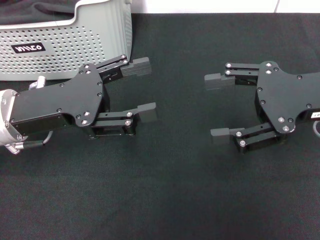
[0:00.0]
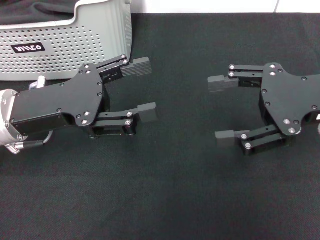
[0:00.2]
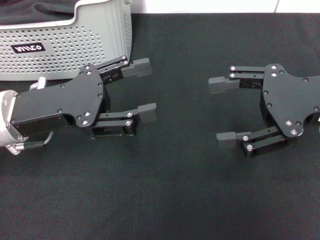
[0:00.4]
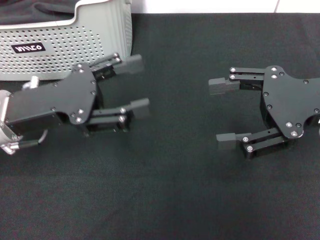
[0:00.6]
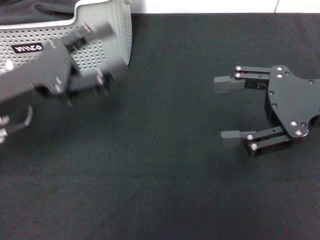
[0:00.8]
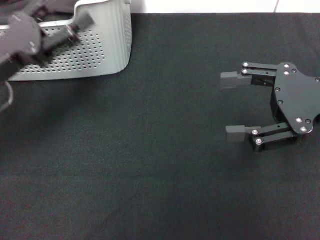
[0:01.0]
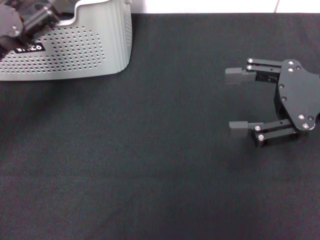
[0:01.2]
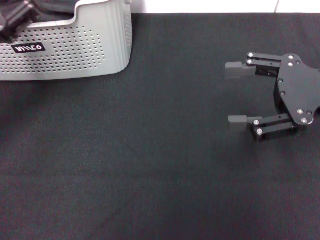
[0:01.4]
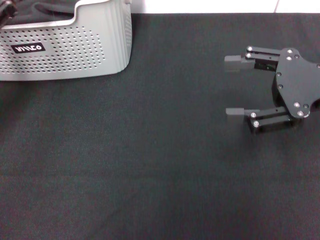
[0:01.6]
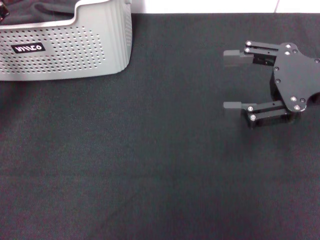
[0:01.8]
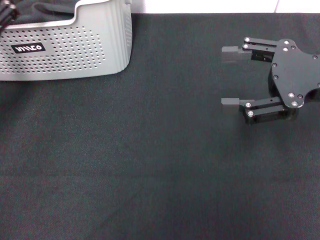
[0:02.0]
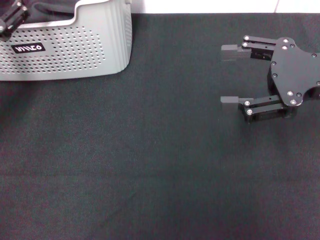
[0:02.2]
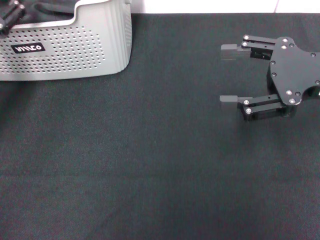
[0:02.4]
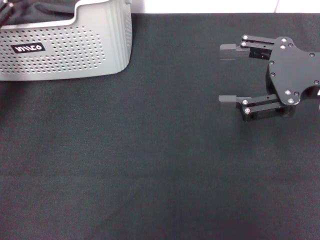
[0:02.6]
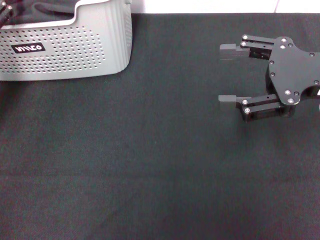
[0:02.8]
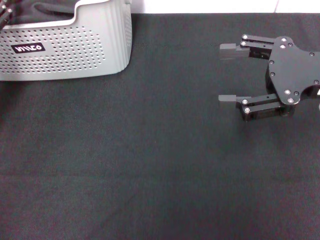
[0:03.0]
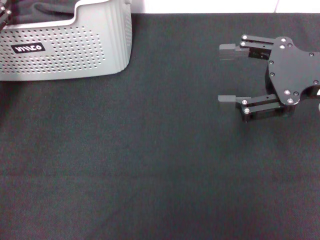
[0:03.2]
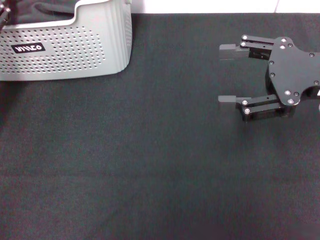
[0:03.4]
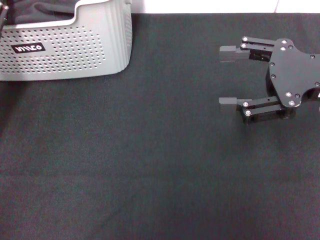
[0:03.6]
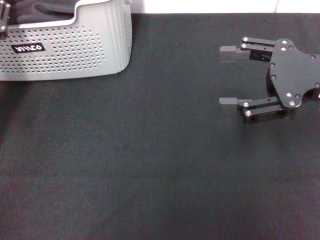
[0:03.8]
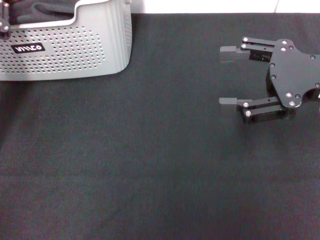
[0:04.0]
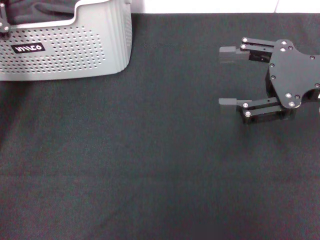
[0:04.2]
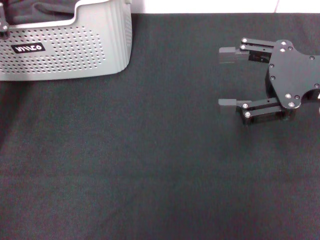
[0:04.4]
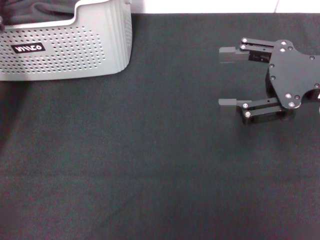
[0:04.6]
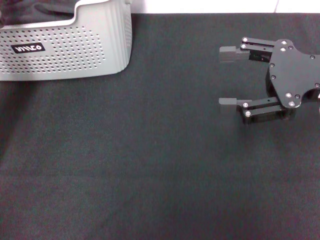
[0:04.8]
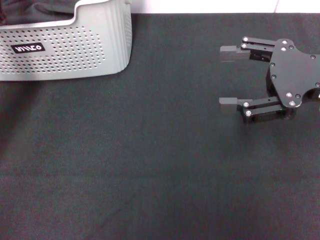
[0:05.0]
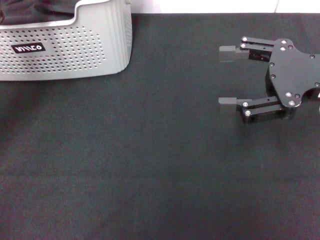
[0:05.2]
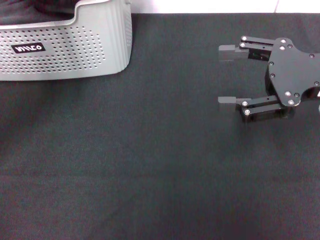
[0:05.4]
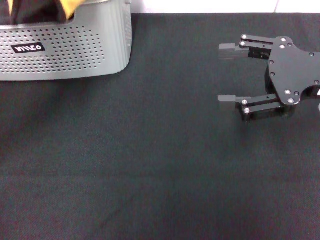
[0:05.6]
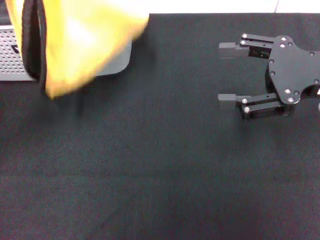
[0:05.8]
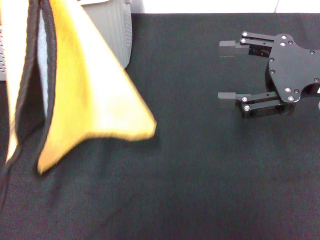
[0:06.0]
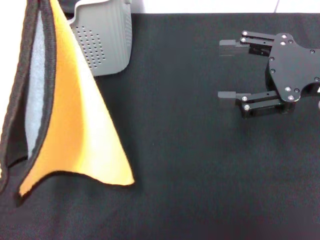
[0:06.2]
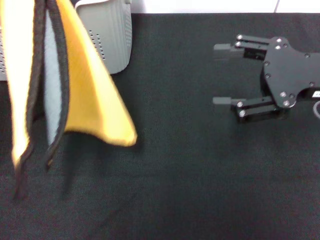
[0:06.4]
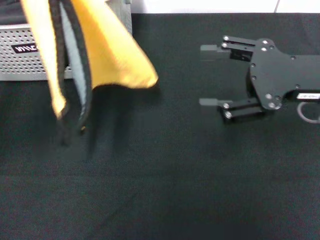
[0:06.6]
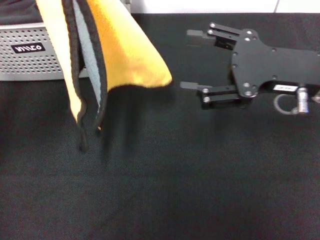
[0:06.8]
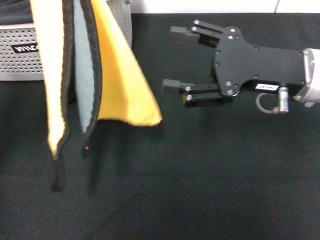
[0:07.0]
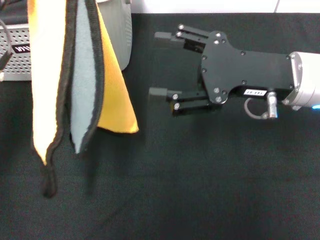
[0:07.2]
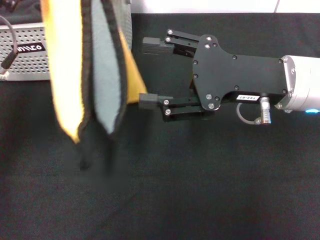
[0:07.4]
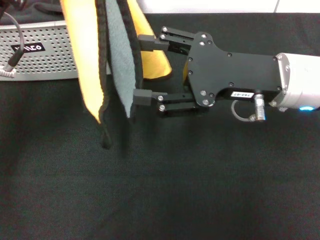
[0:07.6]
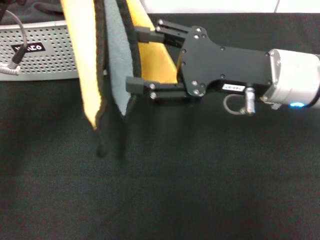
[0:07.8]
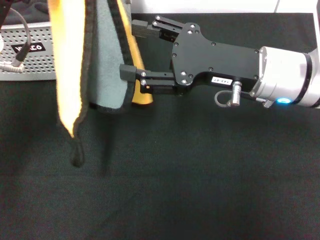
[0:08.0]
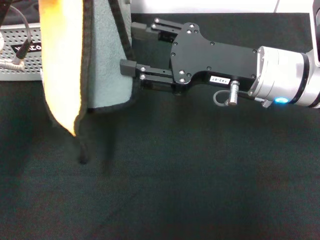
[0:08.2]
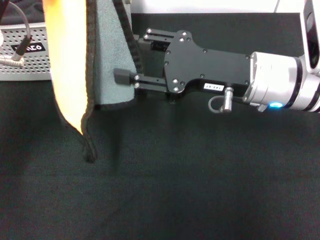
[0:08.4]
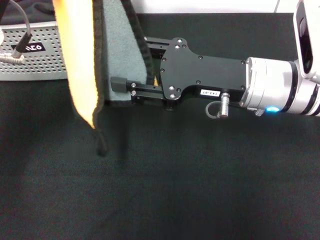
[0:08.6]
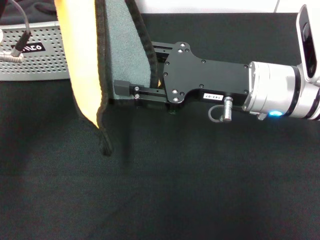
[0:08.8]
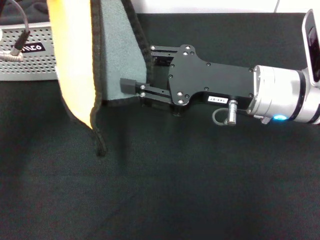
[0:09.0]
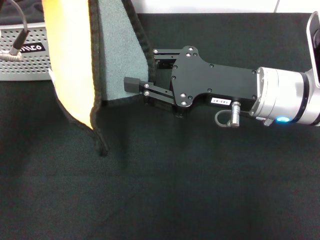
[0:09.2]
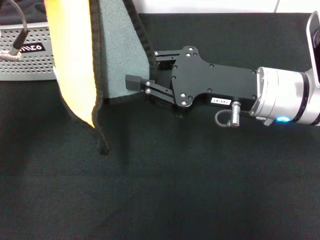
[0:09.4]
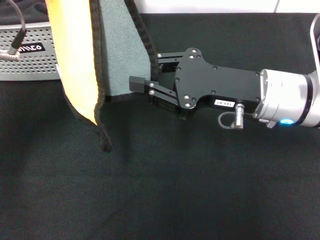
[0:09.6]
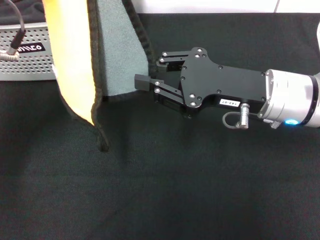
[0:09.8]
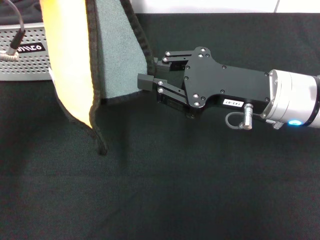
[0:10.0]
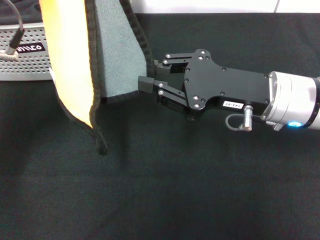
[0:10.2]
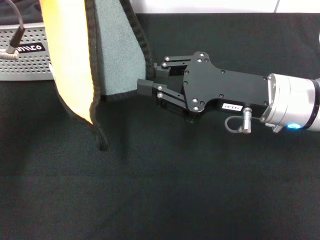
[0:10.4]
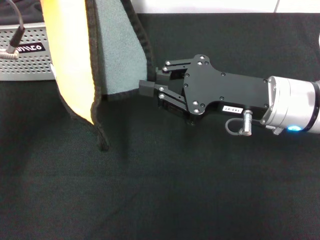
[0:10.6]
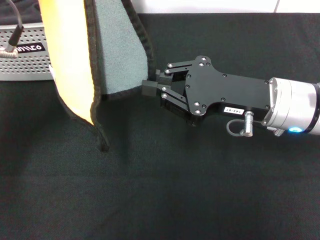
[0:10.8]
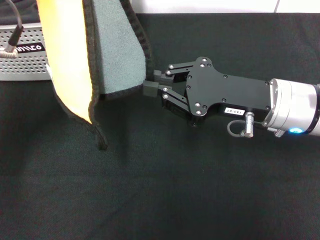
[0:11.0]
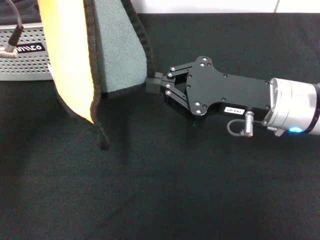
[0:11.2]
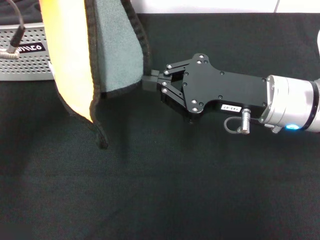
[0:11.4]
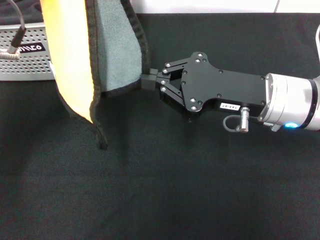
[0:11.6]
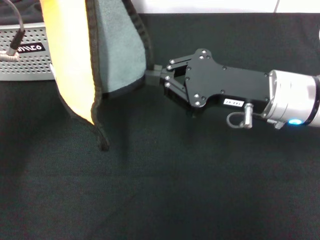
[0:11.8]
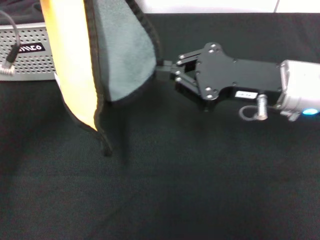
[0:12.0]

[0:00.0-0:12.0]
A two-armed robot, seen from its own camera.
Task of the whole recording: pick up the towel from the storage box and lay it flat on the black tablecloth.
Step, 0:00.0 to 0:04.2: Pick up a towel with the left gripper.
Step, 0:04.6 to 0:11.6: Spread the towel flat with the left gripper.
0:00.0 to 0:01.6: The left gripper heads to the left, covering roughly 10 cm.
0:03.0 to 0:04.4: The left gripper closes up.
0:04.4 to 0:06.0: The left gripper goes some 15 cm upward and backward.
0:06.0 to 0:07.6: The left gripper goes some 5 cm to the right. The right gripper heads to the left, covering roughly 10 cm.
0:07.6 to 0:09.0: The right gripper closes its fingers.
0:09.0 to 0:10.4: The right gripper closes up.
0:10.4 to 0:12.0: There are only small adjustments of the grippers.

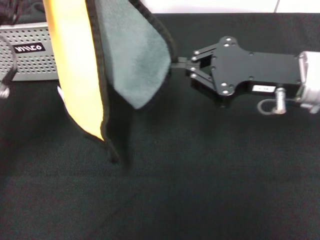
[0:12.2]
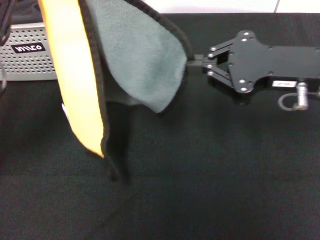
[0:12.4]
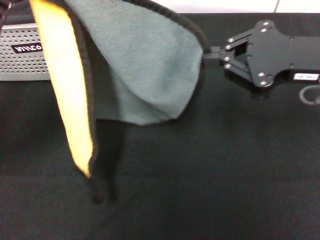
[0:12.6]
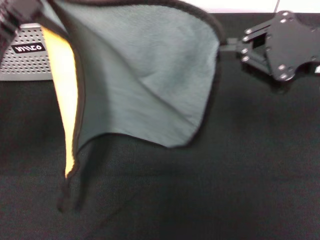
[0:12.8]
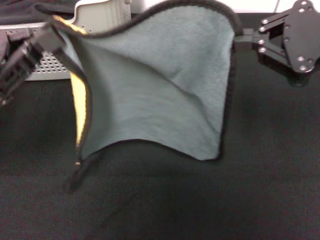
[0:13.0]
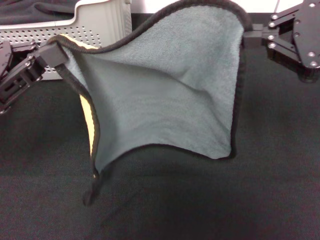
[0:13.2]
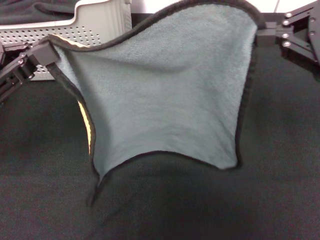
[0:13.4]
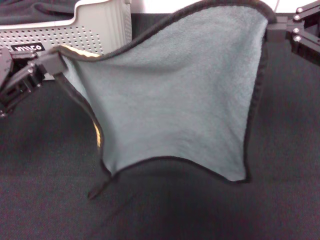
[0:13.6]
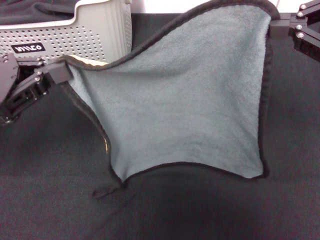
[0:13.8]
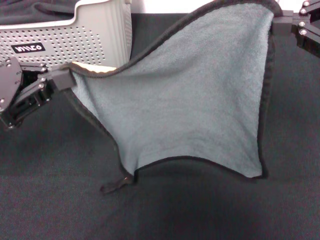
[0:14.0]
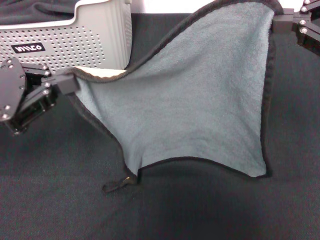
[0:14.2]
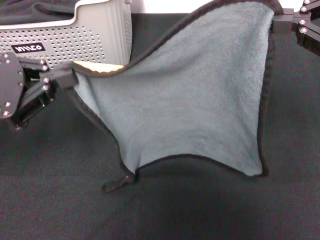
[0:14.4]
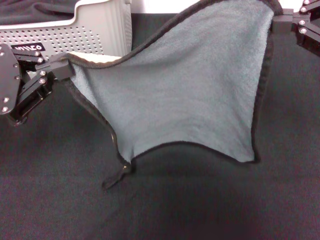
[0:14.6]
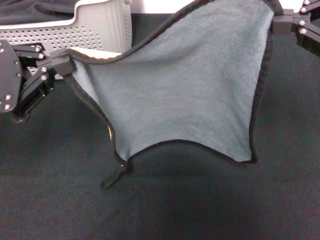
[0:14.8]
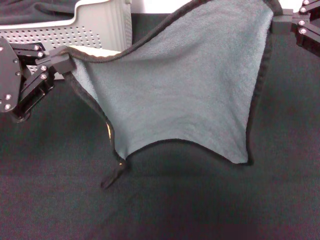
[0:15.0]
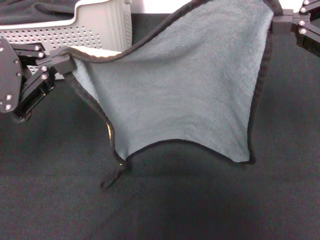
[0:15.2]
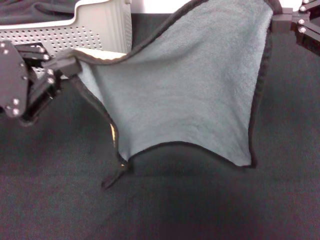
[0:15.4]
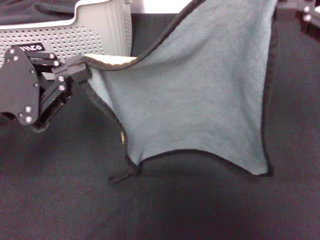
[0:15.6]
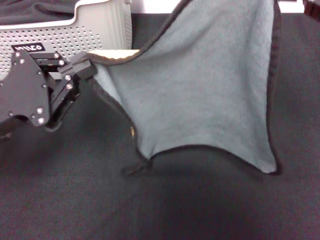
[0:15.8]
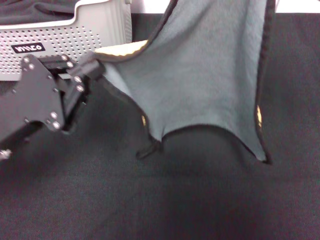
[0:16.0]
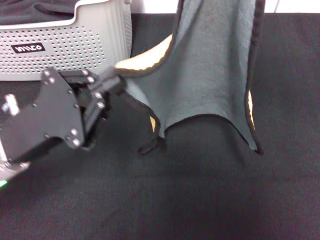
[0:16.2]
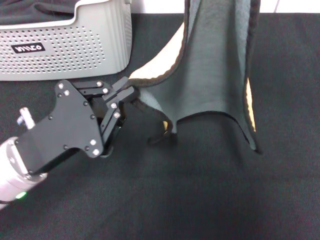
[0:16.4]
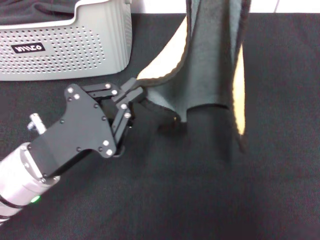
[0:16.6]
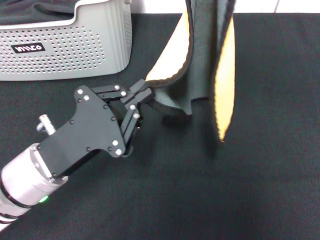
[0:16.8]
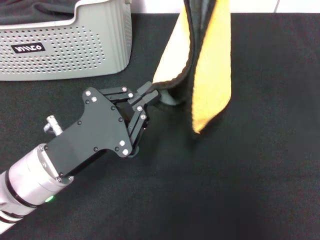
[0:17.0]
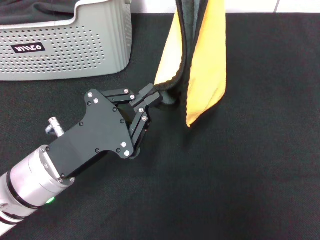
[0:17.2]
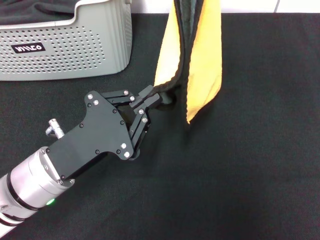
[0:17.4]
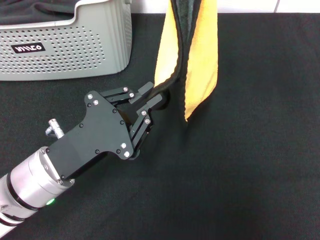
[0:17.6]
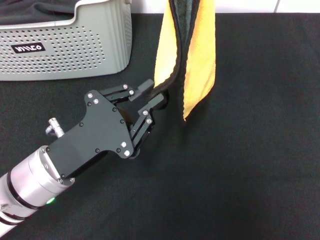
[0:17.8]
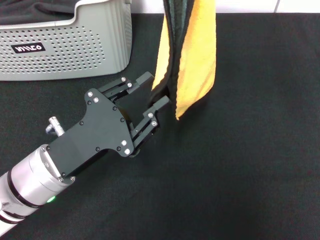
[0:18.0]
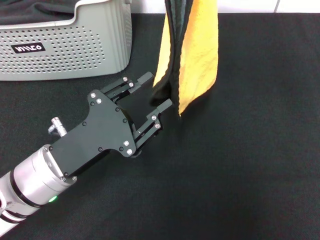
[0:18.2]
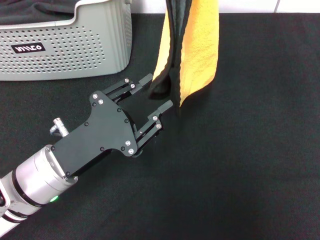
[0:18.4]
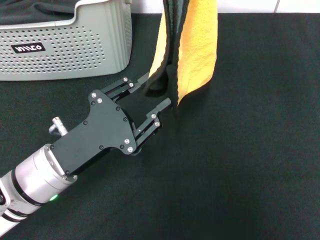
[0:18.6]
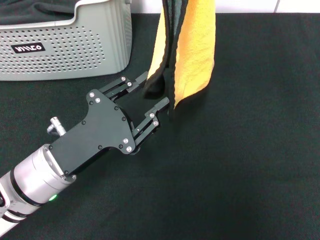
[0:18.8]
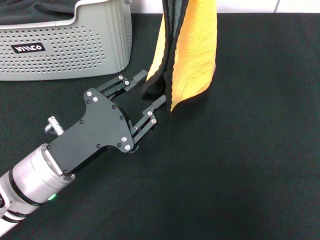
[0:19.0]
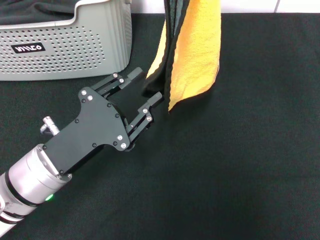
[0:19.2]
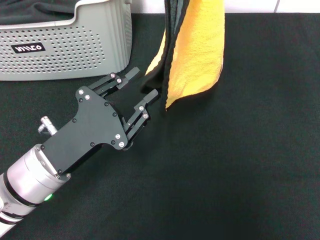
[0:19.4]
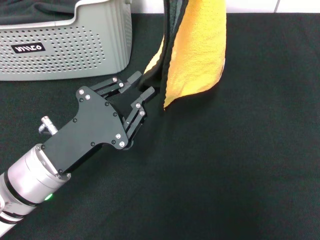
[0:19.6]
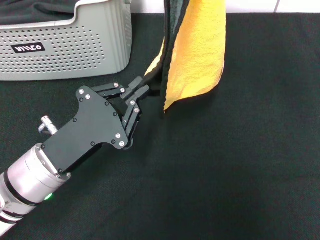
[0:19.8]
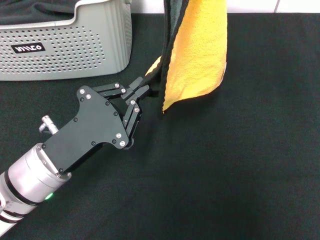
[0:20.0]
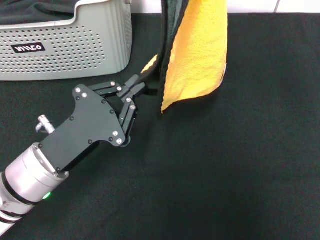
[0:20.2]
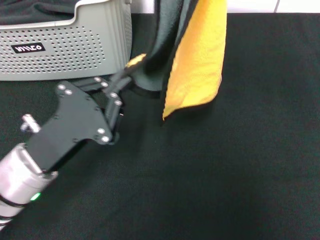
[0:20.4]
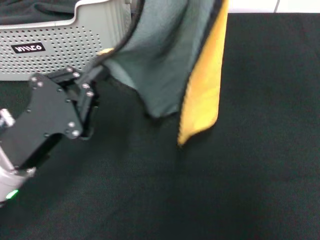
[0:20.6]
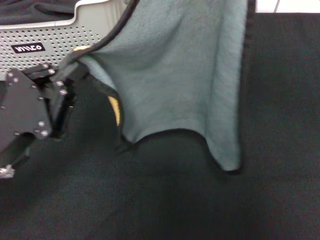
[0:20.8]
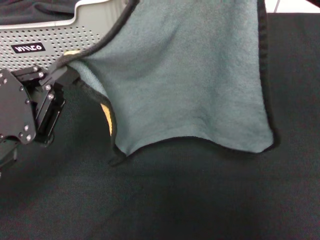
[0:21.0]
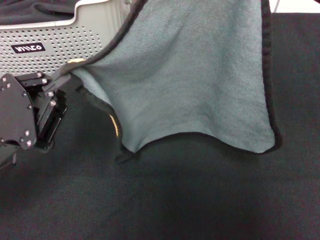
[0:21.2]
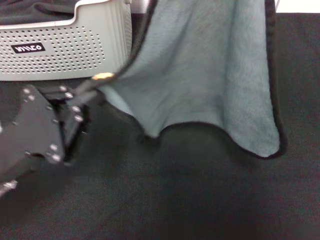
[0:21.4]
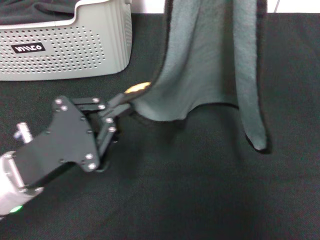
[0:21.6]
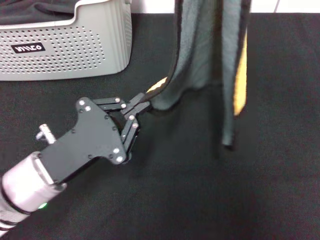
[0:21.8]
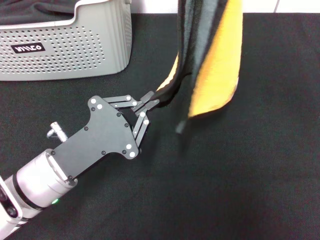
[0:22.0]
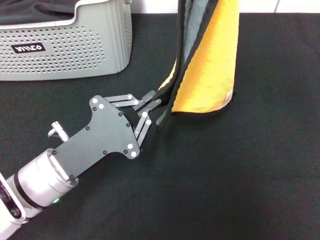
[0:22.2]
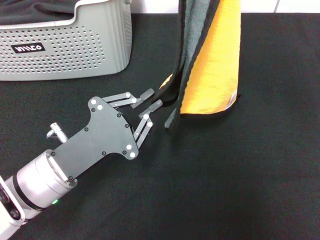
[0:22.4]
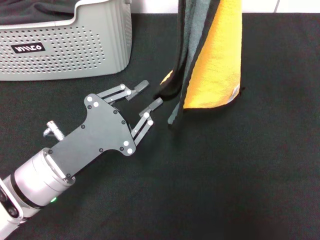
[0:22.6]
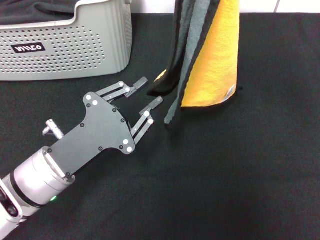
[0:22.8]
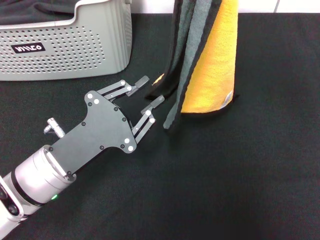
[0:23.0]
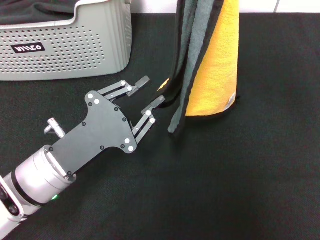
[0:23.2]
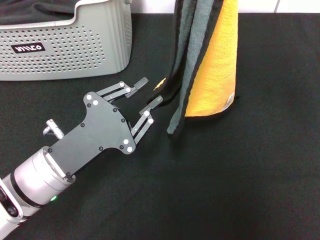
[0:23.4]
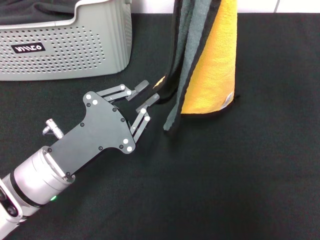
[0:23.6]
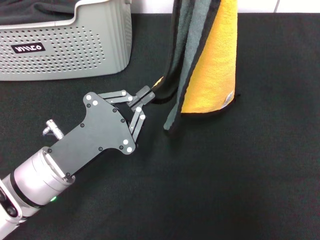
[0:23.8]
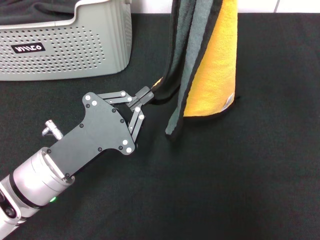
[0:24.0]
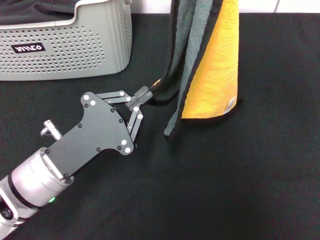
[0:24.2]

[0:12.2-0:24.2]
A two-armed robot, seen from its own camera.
Task of the whole recording: pick up the towel from the storage box and lay it flat on the black tablecloth.
0:12.2 to 0:13.8: The left gripper is displaced to the left by about 5 cm, while the right gripper moves to the right and upward, some 15 cm.
0:15.2 to 0:16.6: The right gripper shifts approximately 5 cm upward. The left gripper travels to the right and downward by approximately 15 cm.
0:16.6 to 0:18.2: The right gripper shifts by roughly 5 cm. The left gripper opens.
0:18.2 to 0:19.8: The grippers move only a little.
0:19.8 to 0:21.2: The left gripper travels to the left by some 5 cm. The right gripper ends up approximately 5 cm from where it was.
0:21.2 to 0:22.6: The left gripper is displaced to the right by some 5 cm.
0:22.6 to 0:24.2: Neither gripper changes place.
